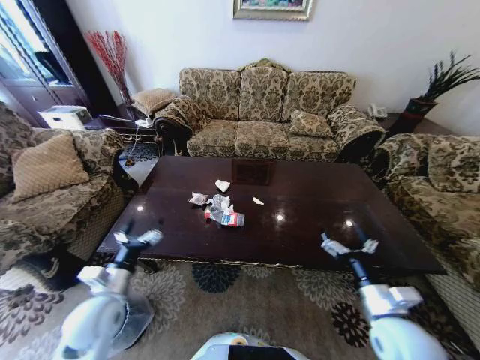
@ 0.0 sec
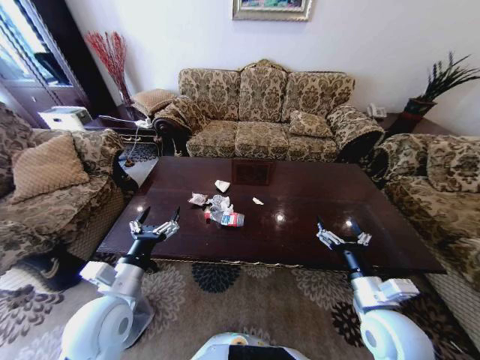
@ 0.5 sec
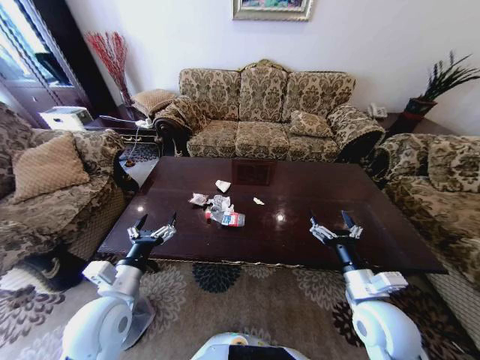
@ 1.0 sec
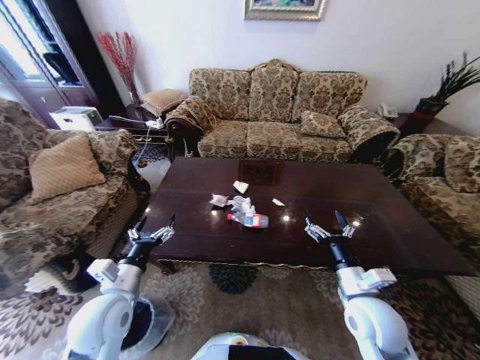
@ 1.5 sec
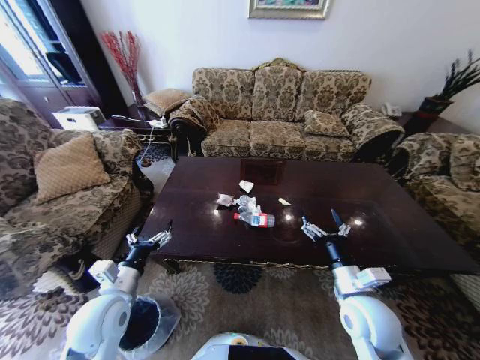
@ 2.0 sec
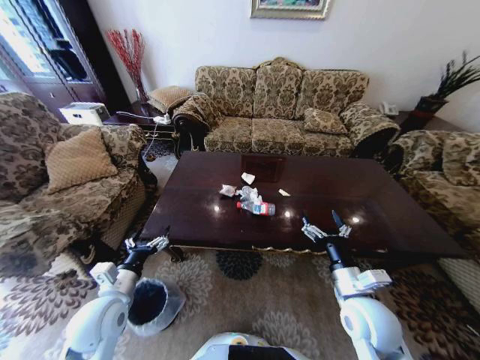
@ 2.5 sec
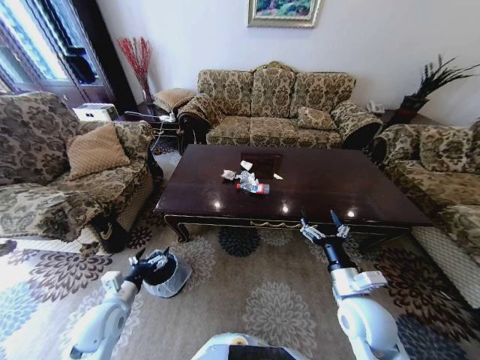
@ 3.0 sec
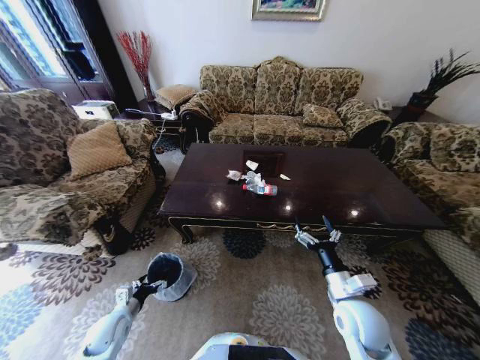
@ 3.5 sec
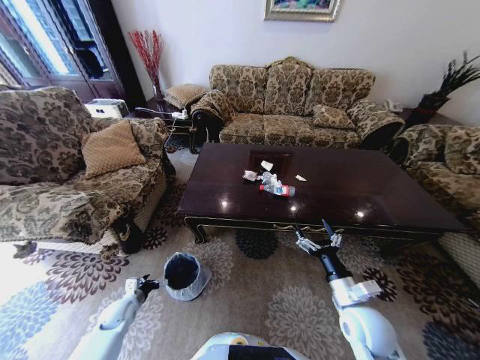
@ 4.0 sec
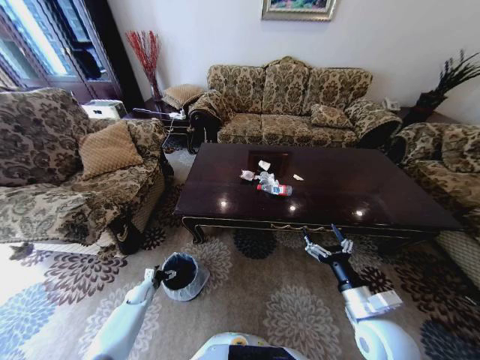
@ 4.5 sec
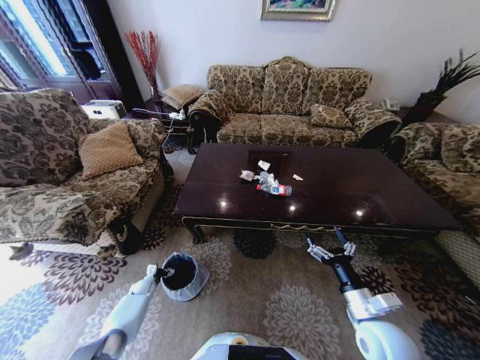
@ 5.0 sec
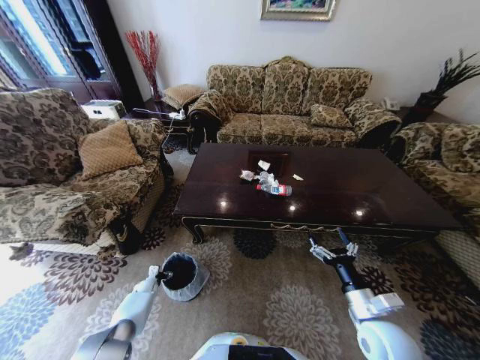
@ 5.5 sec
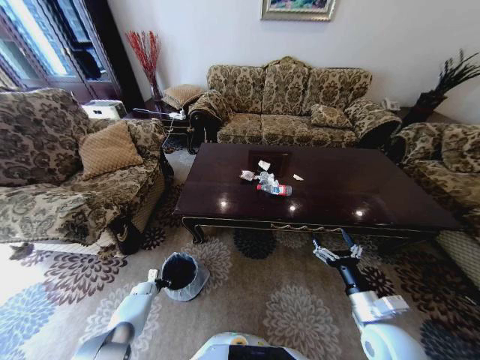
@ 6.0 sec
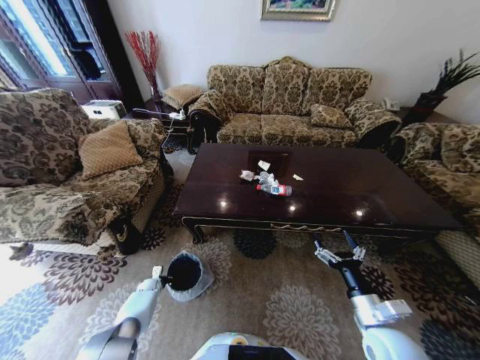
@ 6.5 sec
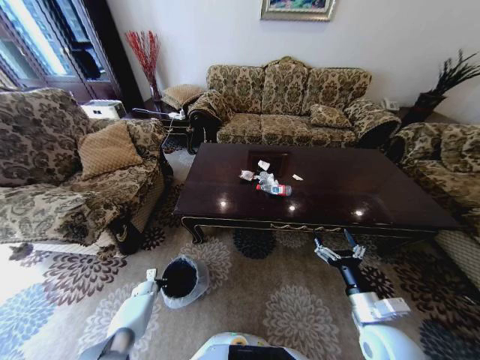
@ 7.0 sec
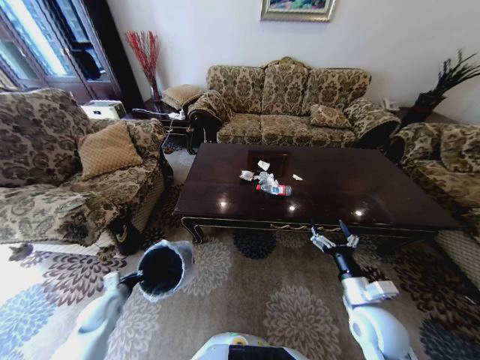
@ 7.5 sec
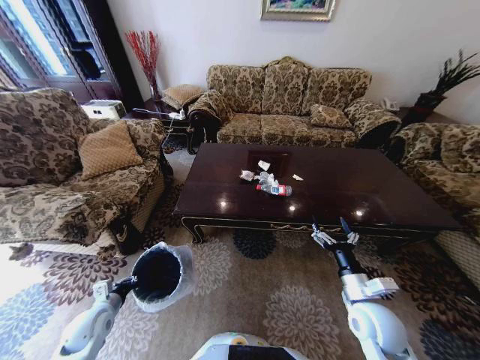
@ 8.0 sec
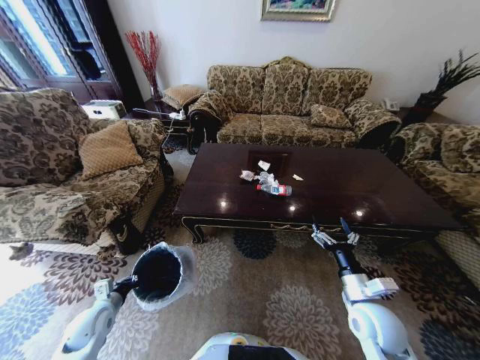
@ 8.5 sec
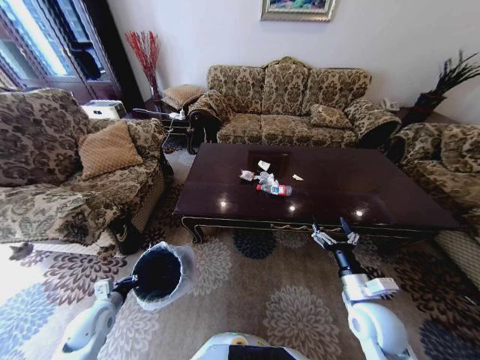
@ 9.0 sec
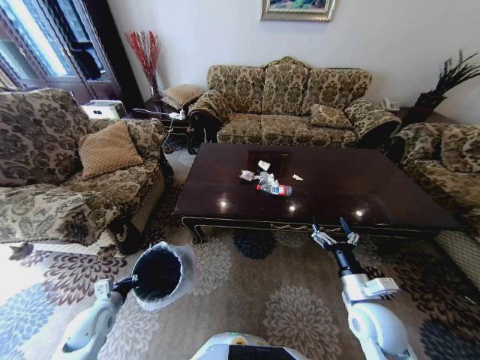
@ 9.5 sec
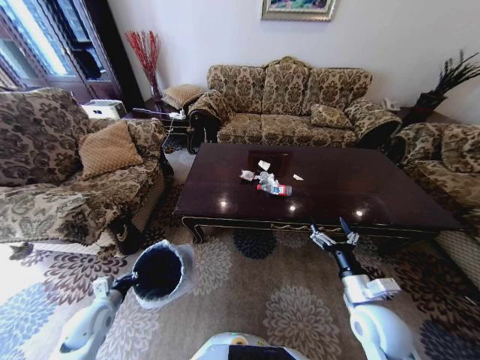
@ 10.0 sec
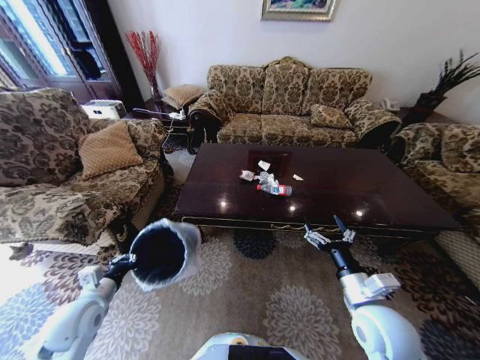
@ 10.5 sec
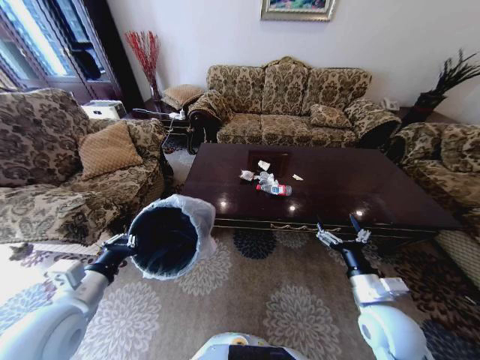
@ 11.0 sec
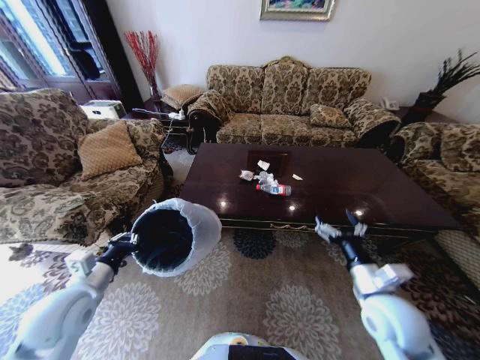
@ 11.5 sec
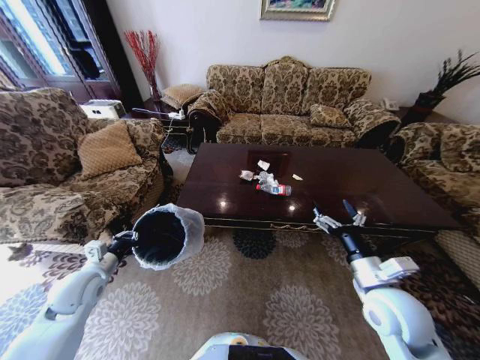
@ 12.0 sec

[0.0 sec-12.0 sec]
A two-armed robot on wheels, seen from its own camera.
Task of the whole recording: Move to the front of the table and place the trash on the table into the trash bin.
2.0 sec to 4.0 sec: The right gripper shifts about 5 cm downward. The left gripper goes some 25 cm downward and to the left.
4.0 sec to 6.0 sec: The left gripper is displaced downward and forward by about 15 cm, and closes its fingers.
6.0 sec to 8.0 sec: The left gripper shifts approximately 25 cm upward and backward, and closes.
8.0 sec to 10.0 sec: Both grippers stay about where they are.
10.0 sec to 12.0 sec: The right gripper travels upward by about 5 cm. Meanwhile the left gripper heads upward and forward, covering approximately 15 cm.

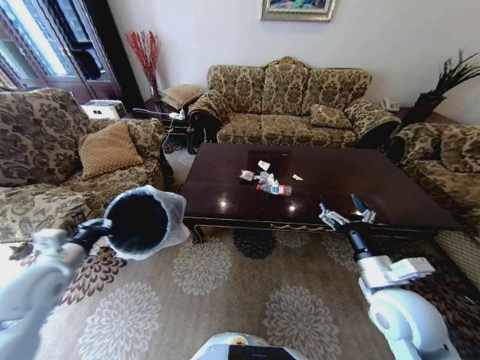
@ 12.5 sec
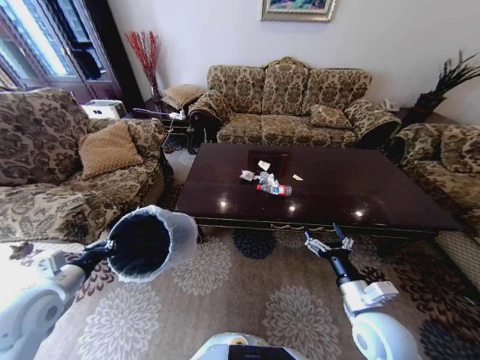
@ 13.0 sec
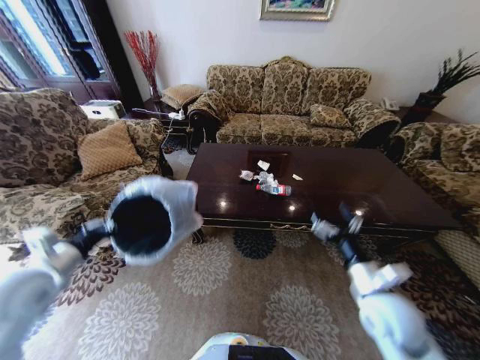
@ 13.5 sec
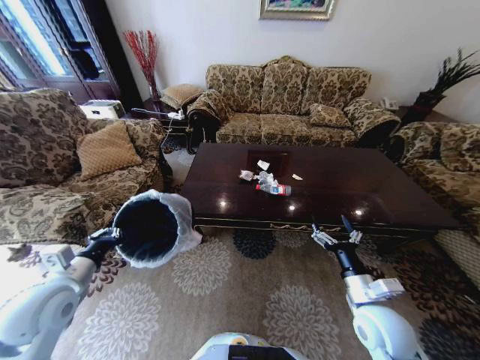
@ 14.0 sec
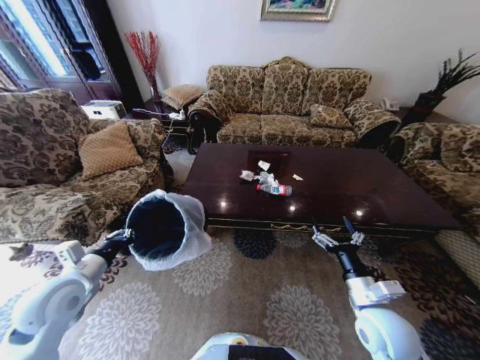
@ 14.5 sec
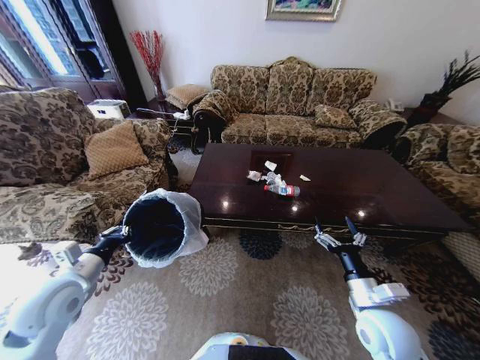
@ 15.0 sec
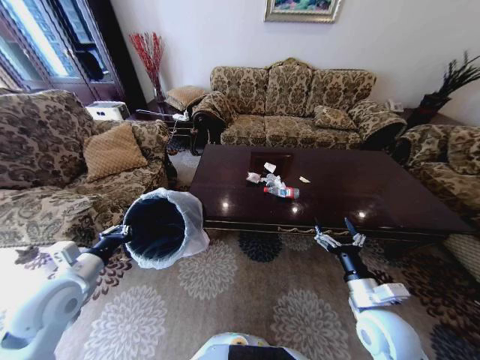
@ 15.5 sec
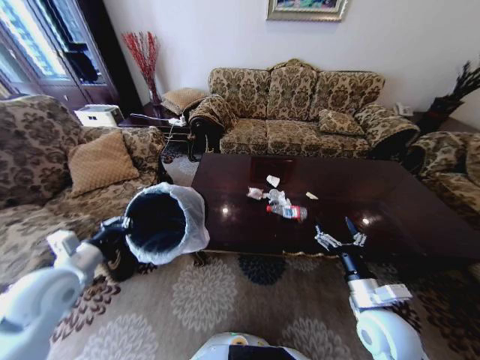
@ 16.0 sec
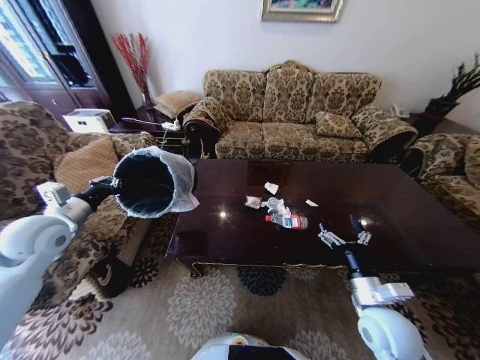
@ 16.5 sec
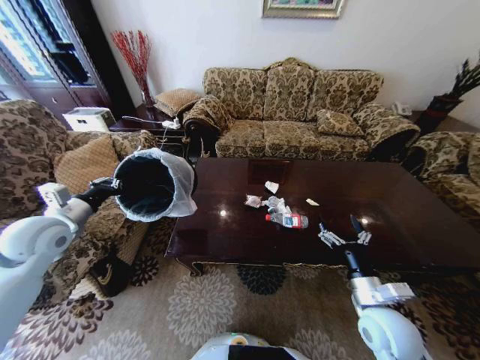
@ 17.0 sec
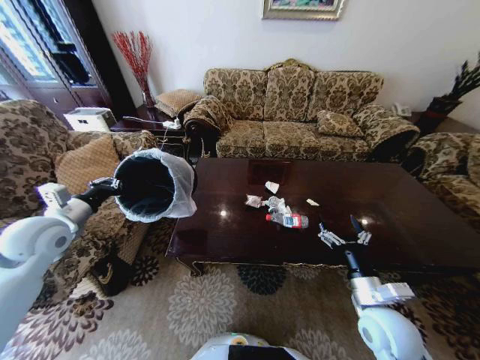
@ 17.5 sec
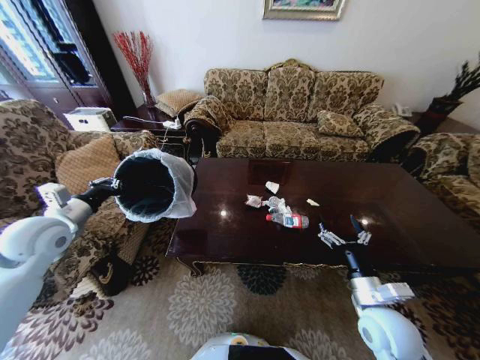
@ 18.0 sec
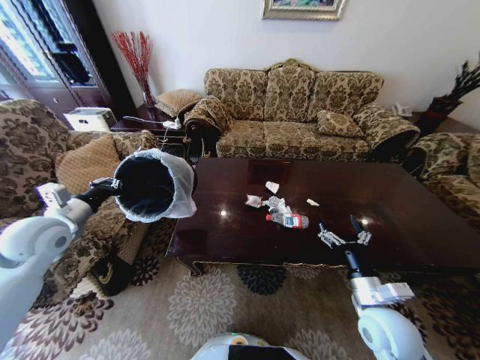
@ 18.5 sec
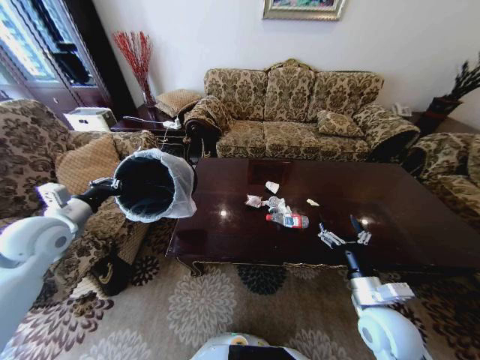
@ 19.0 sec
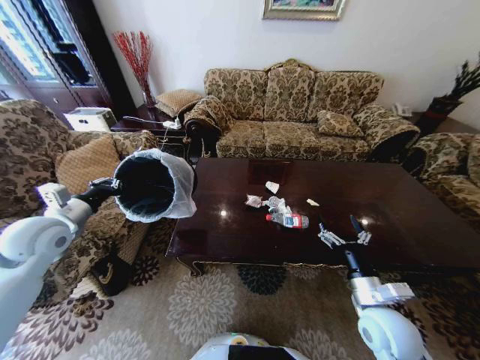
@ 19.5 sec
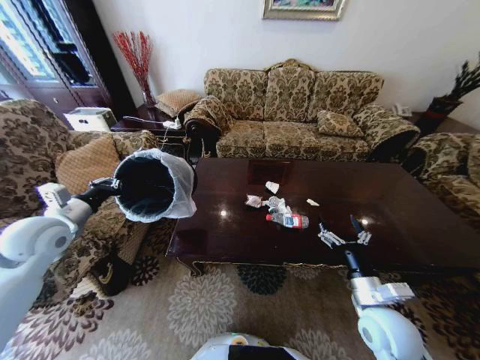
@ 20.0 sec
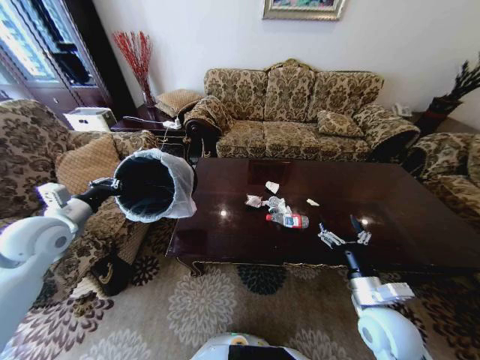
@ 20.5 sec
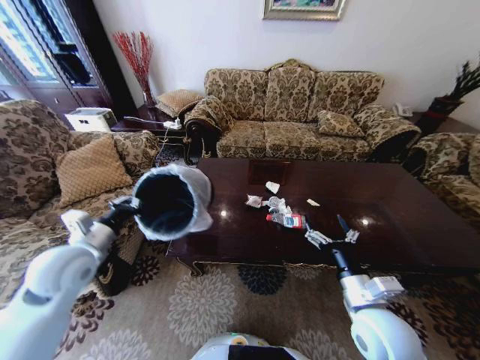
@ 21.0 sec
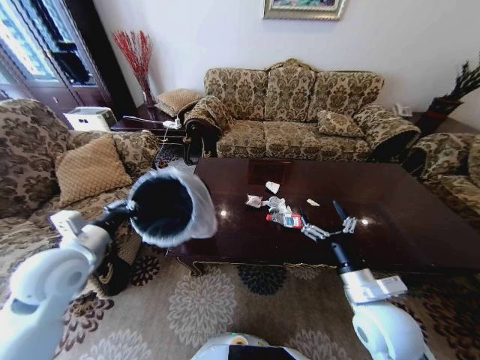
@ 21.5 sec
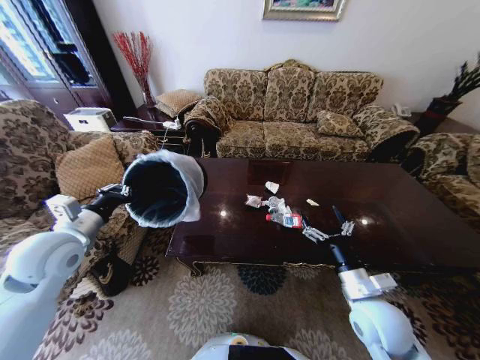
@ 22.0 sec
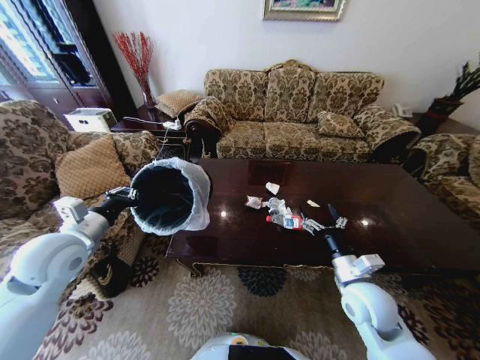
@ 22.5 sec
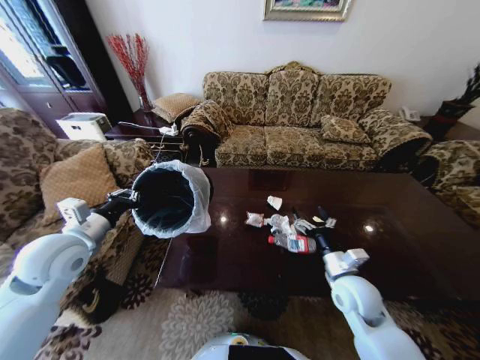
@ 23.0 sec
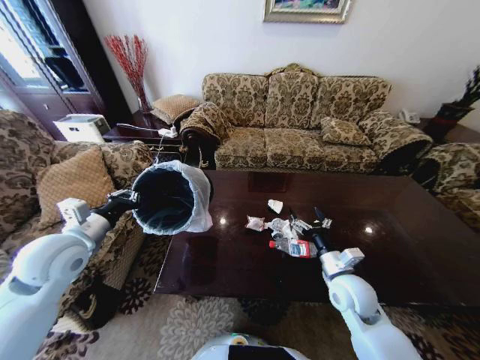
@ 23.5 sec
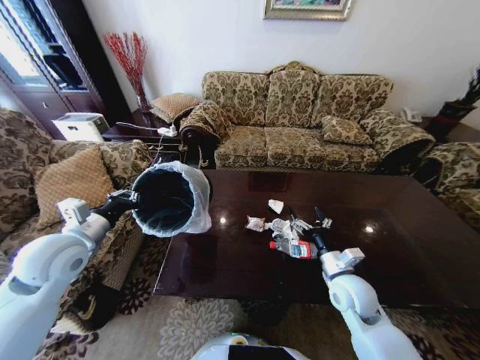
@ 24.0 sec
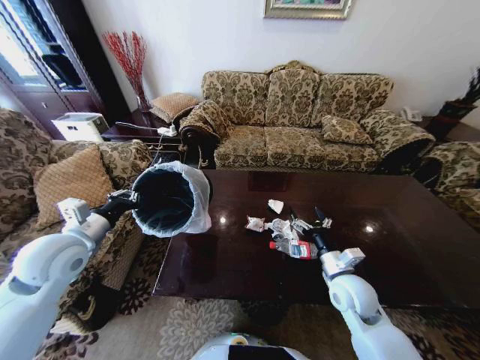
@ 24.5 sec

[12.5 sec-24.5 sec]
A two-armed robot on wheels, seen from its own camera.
Task of the whole recording: Move to the front of the table and place the trash on the table into the trash bin.
12.5 sec to 14.5 sec: The right gripper heads downward, covering some 5 cm; the left gripper changes place by roughly 5 cm.
14.5 sec to 16.5 sec: The left gripper shifts about 15 cm forward, upward and to the left.
16.5 sec to 20.5 sec: Both grippers stay put.
20.5 sec to 22.5 sec: The left gripper goes approximately 5 cm to the right. Meanwhile the right gripper ends up roughly 5 cm from where it was.

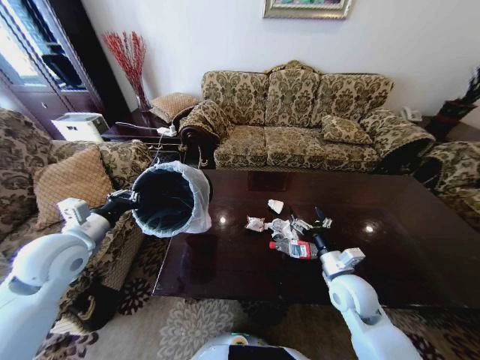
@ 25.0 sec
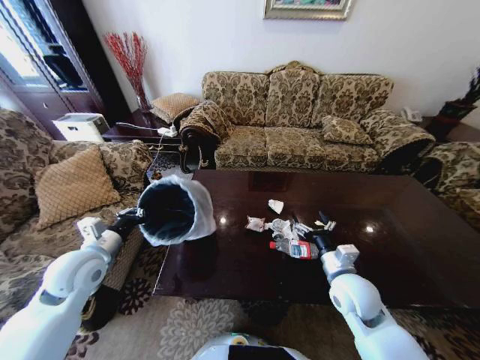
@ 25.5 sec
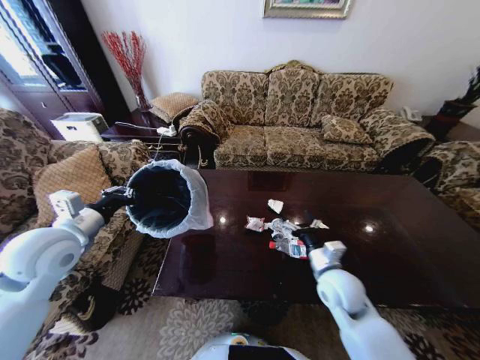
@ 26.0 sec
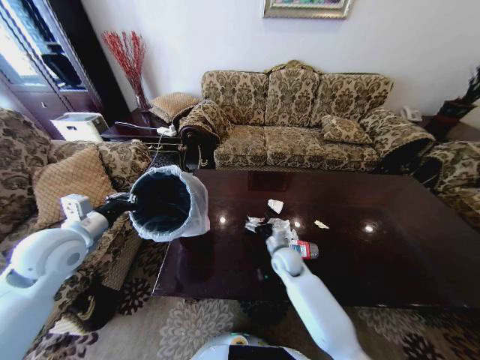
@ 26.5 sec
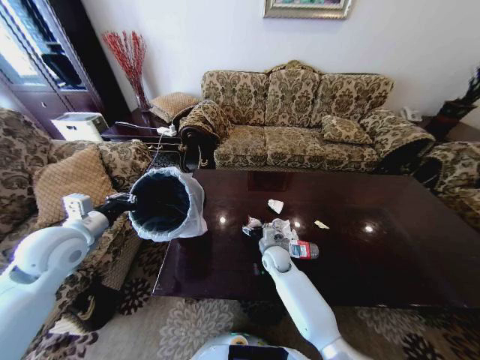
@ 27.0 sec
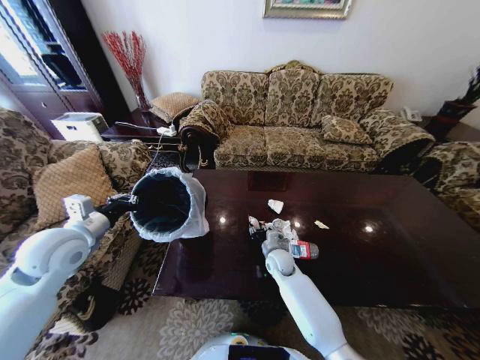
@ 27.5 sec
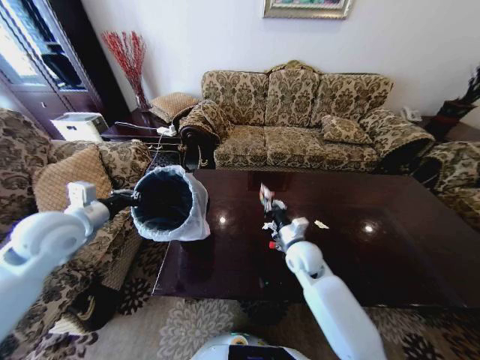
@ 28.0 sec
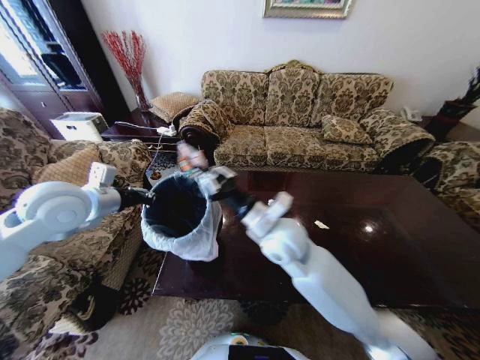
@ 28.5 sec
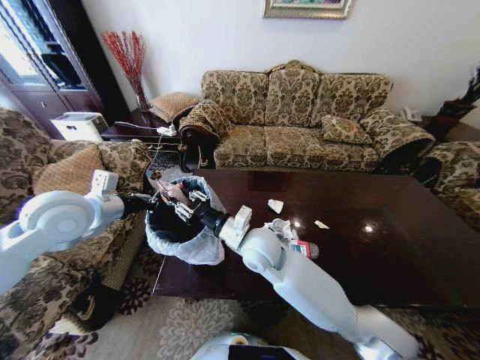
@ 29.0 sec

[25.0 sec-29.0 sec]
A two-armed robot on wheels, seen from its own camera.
Task of the whole recording: Move to the front of the table and place the trash on the table into the trash bin.
25.0 sec to 27.0 sec: The right gripper is displaced to the left, forward and downward by approximately 25 cm. Meanwhile the left gripper moves some 5 cm downward and comes back.
27.0 sec to 29.0 sec: The left gripper travels upward by approximately 5 cm. Meanwhile the right gripper travels upward and to the left by some 25 cm, and closes its fingers.
